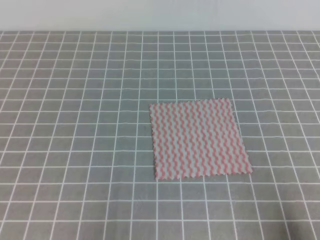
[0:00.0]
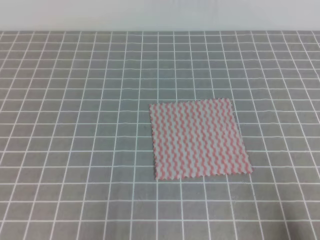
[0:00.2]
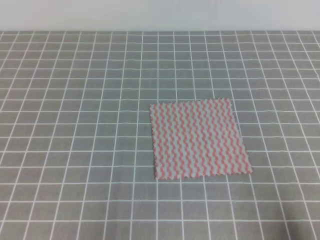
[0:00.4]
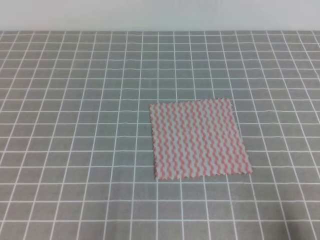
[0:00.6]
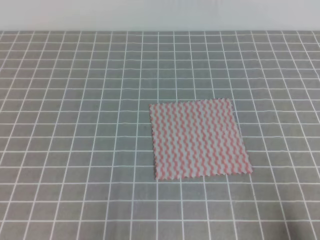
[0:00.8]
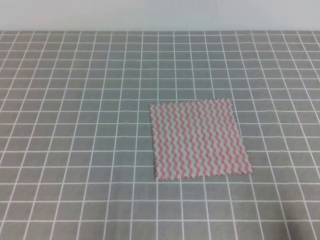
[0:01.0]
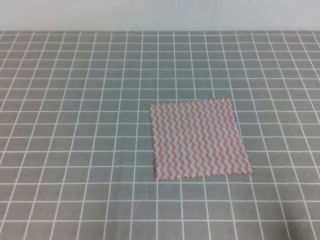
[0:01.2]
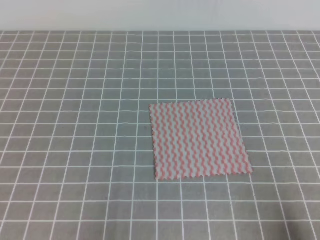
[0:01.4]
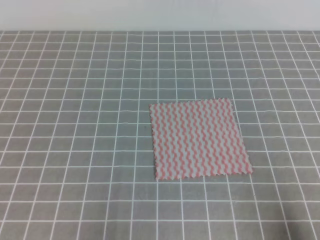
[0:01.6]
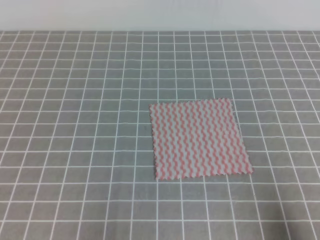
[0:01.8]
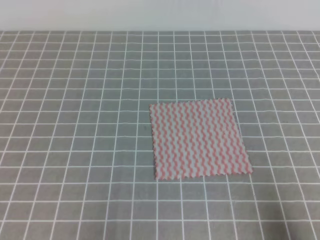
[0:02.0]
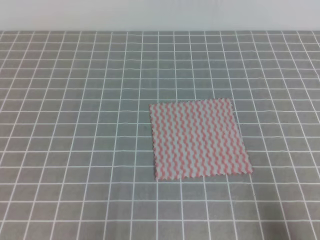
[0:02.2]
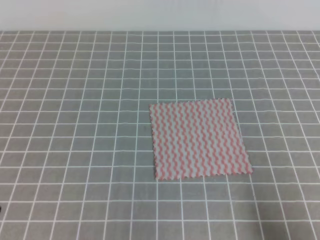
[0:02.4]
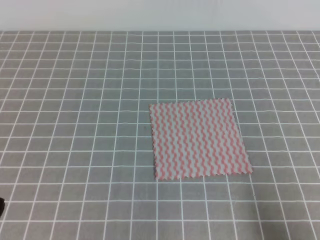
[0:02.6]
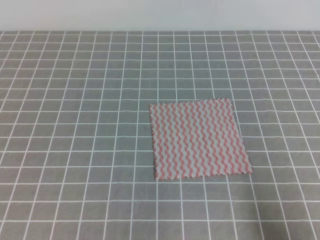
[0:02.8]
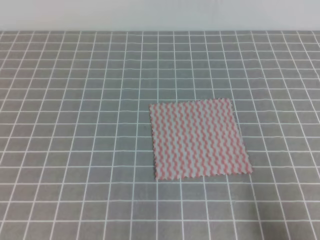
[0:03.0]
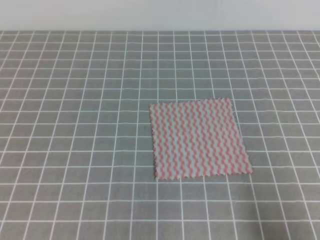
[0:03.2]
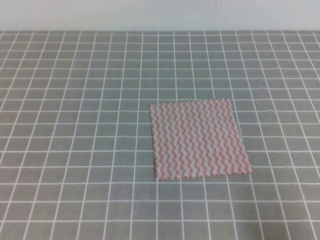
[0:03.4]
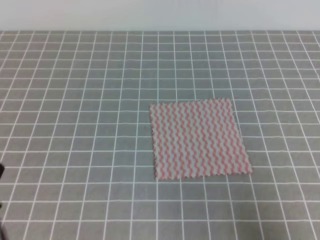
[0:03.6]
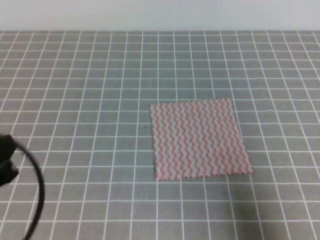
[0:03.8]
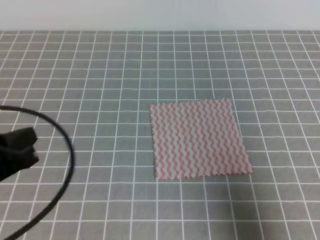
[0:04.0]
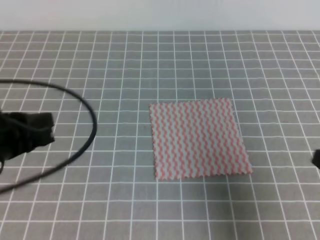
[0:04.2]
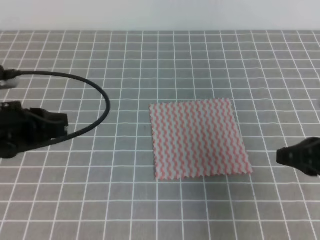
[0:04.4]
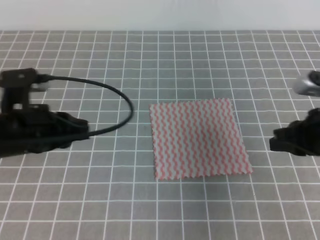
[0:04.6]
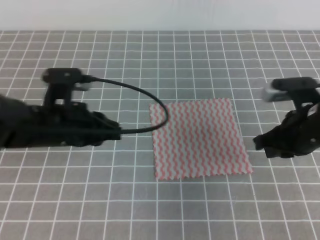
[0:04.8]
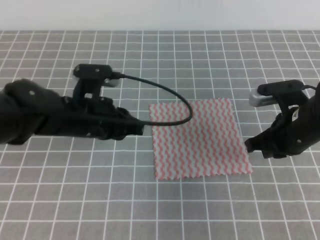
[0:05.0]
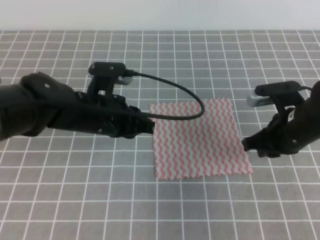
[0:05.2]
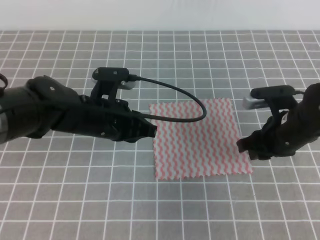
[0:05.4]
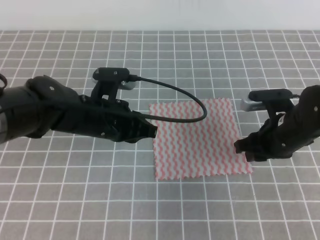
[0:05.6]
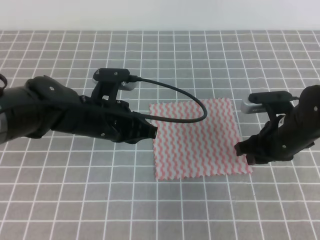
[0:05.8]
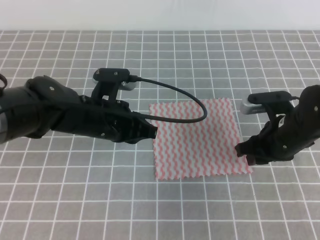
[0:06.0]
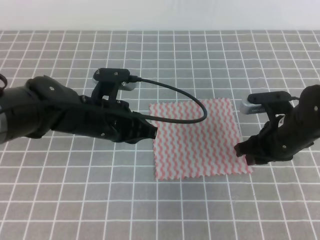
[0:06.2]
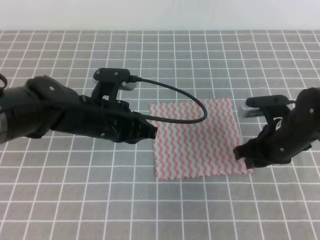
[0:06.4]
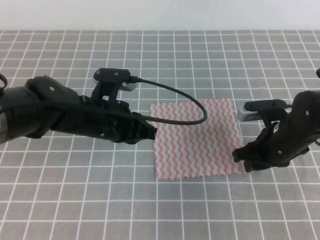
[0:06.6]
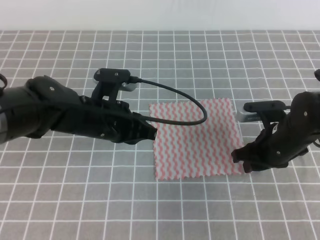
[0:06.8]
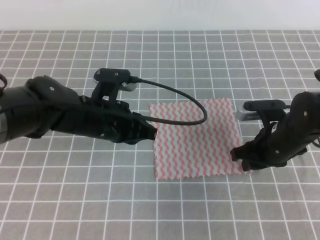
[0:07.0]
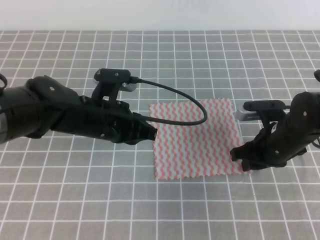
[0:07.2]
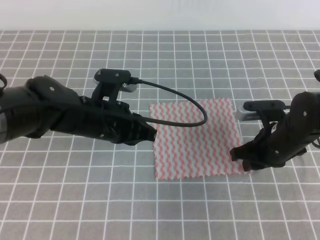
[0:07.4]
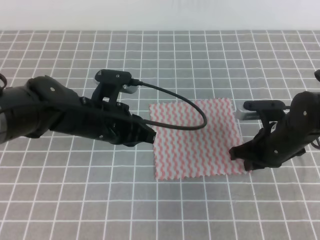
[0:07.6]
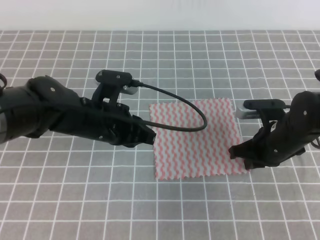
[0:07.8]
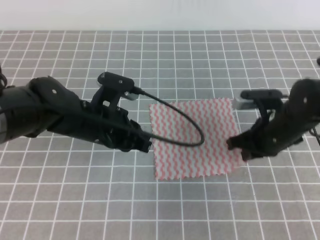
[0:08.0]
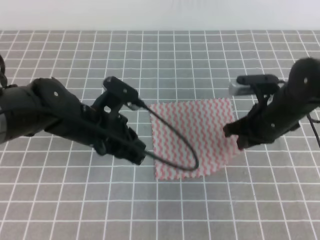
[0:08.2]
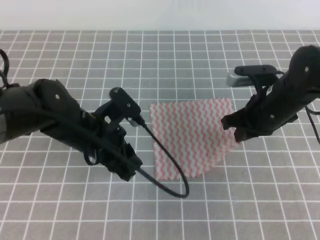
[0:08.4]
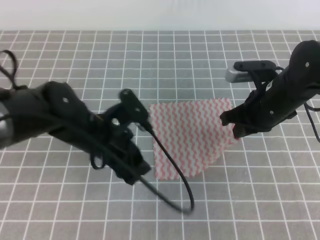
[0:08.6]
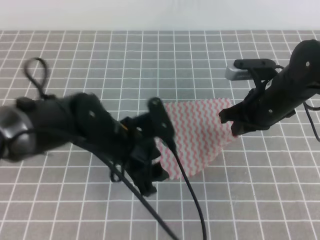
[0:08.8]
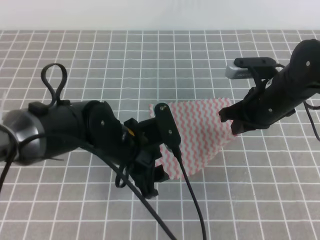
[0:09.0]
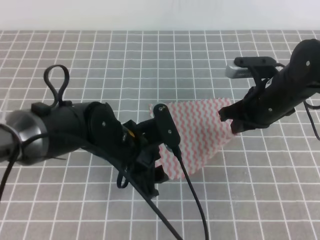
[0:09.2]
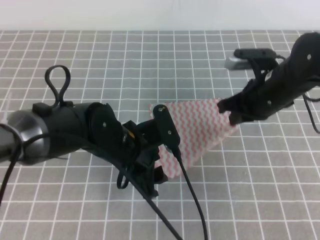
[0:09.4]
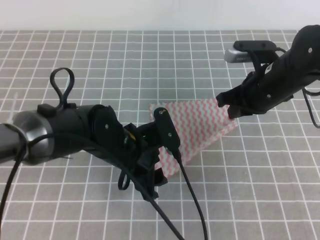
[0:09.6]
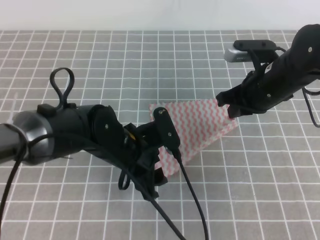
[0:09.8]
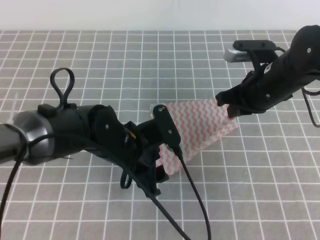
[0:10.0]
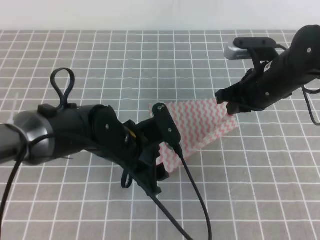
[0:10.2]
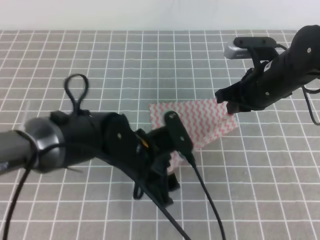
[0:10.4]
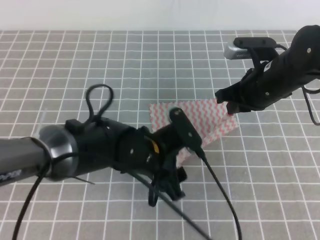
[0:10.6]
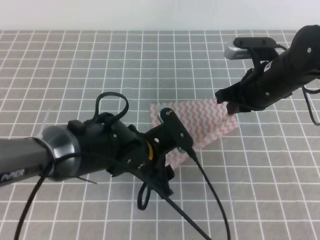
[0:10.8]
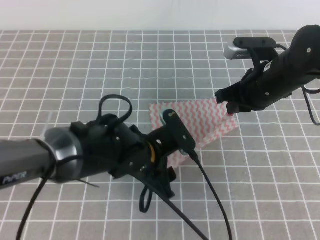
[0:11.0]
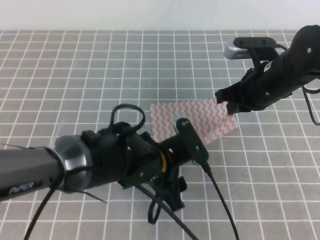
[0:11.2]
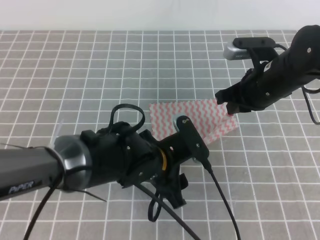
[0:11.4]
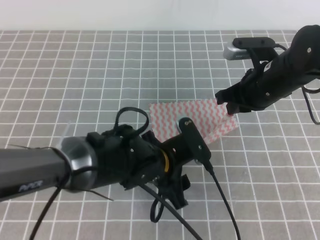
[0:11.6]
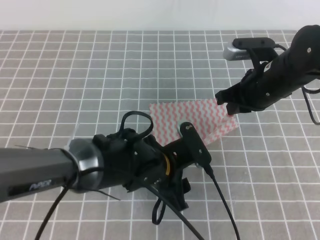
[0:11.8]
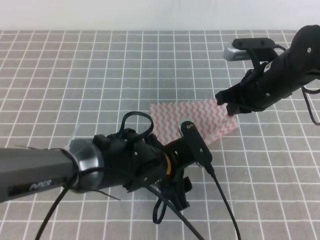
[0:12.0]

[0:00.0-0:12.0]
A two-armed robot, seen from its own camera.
0:00.0 to 0:01.6: Both grippers stay about where they are.
0:03.0 to 0:04.4: The two grippers go about 15 cm forward and upward.
0:04.4 to 0:06.0: The left gripper is displaced to the right and forward by some 15 cm. Meanwhile the right gripper travels forward, downward and to the left by some 15 cm, and opens.
0:06.0 to 0:07.6: The right gripper closes its fingers.
0:07.6 to 0:09.0: The left gripper changes place by about 5 cm, and opens its fingers. The right gripper heads upward, covering approximately 5 cm.
0:10.4 to 0:12.0: The grippers move only a little.

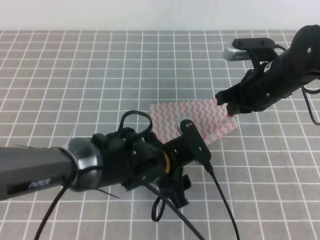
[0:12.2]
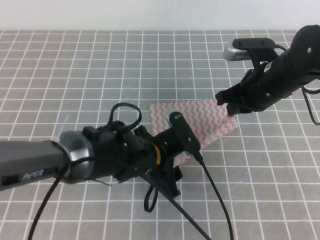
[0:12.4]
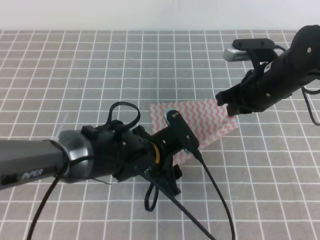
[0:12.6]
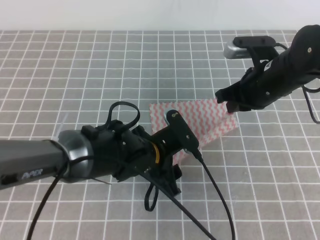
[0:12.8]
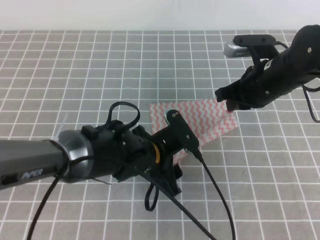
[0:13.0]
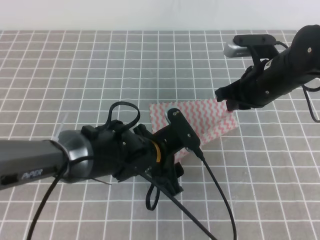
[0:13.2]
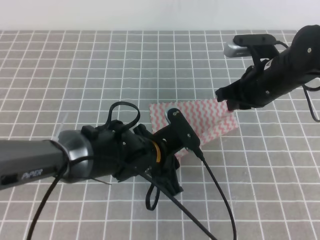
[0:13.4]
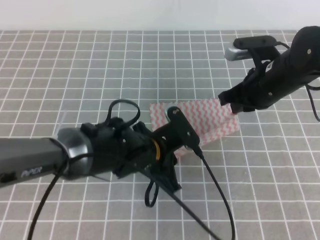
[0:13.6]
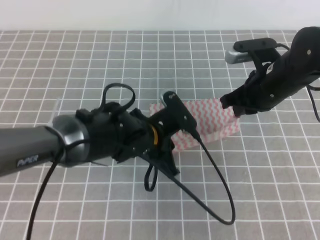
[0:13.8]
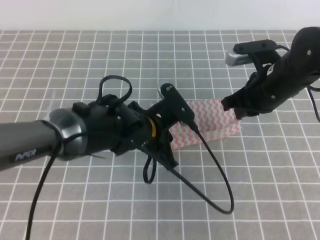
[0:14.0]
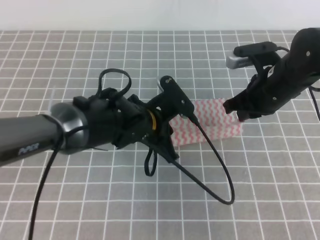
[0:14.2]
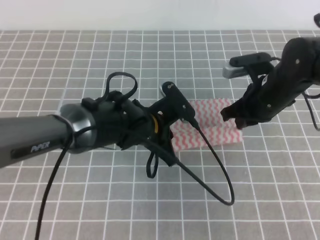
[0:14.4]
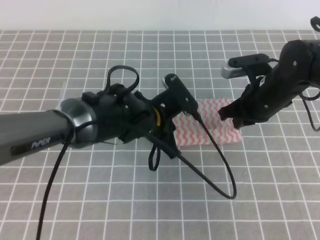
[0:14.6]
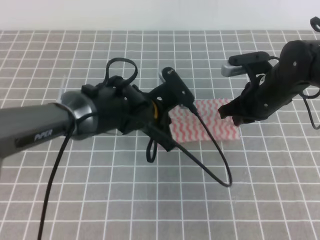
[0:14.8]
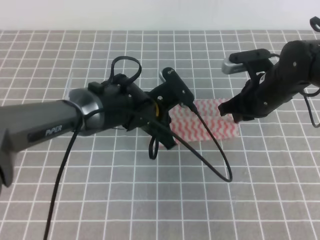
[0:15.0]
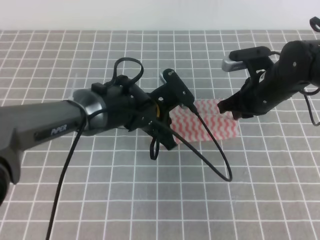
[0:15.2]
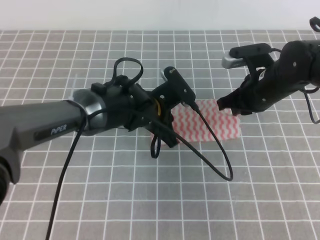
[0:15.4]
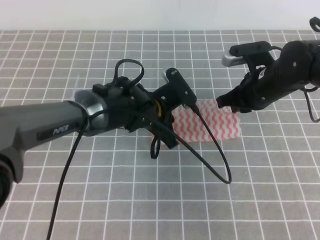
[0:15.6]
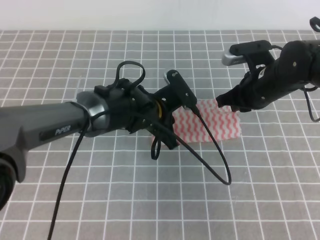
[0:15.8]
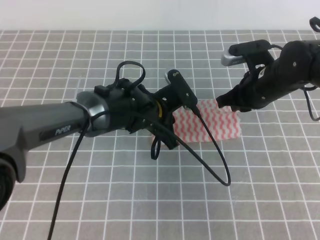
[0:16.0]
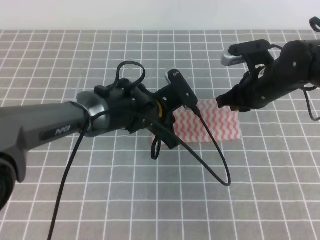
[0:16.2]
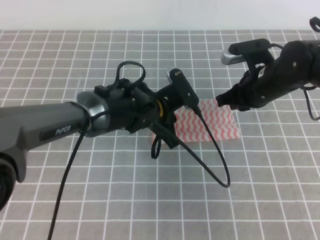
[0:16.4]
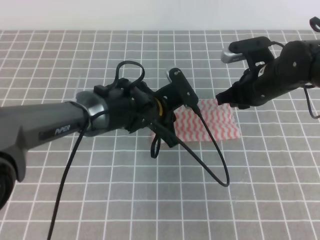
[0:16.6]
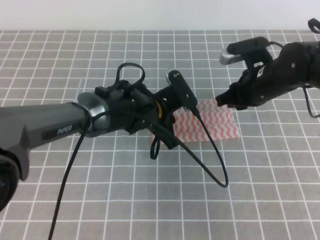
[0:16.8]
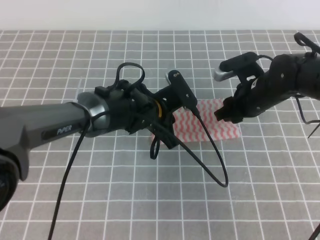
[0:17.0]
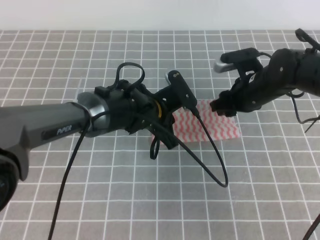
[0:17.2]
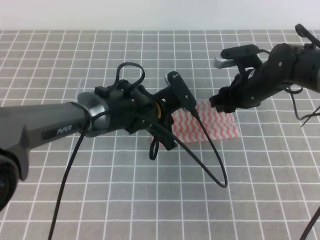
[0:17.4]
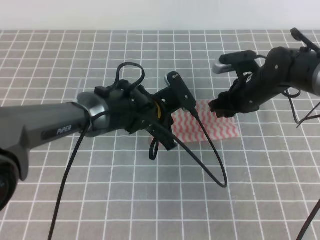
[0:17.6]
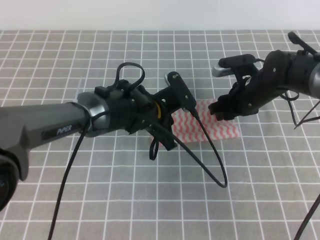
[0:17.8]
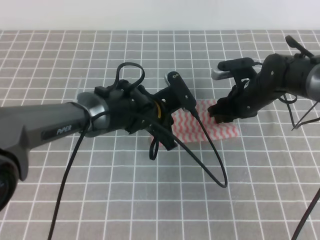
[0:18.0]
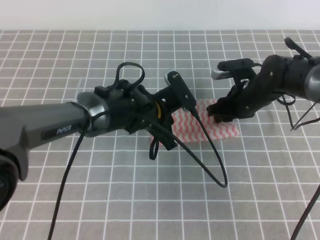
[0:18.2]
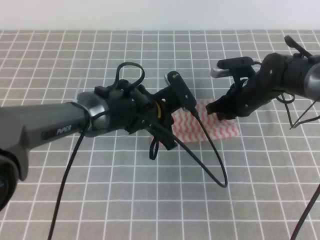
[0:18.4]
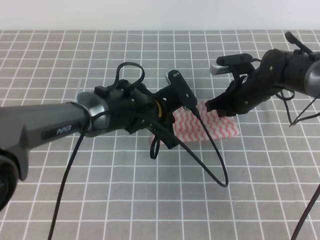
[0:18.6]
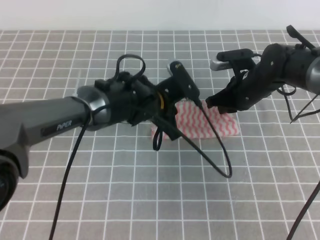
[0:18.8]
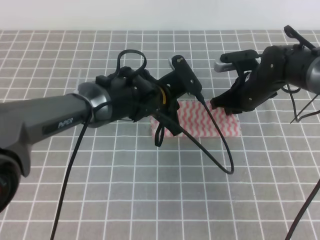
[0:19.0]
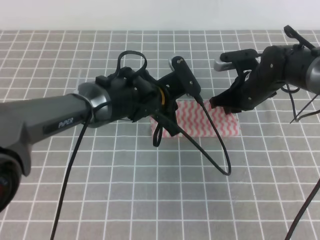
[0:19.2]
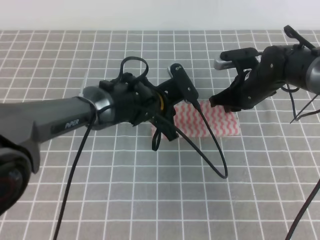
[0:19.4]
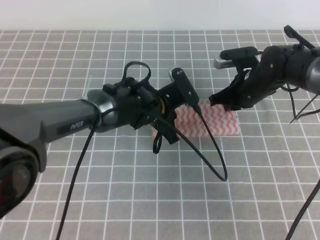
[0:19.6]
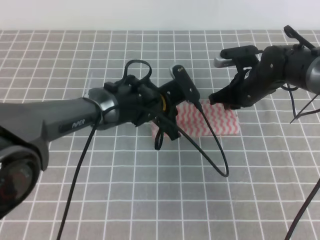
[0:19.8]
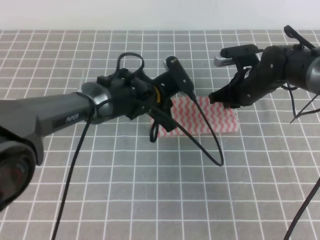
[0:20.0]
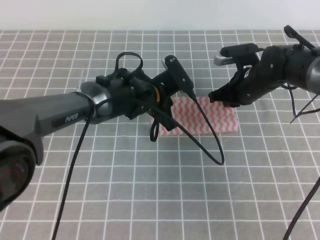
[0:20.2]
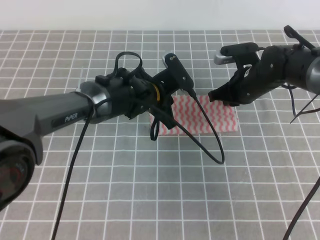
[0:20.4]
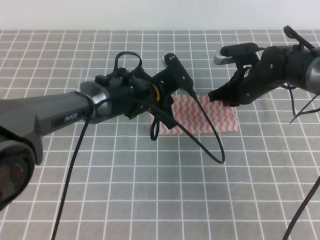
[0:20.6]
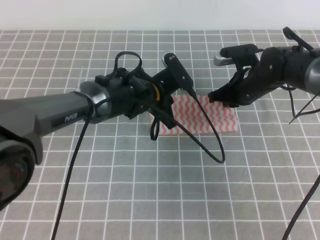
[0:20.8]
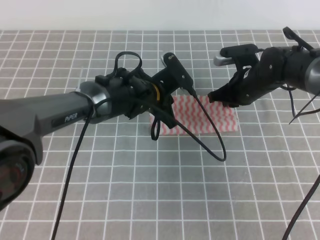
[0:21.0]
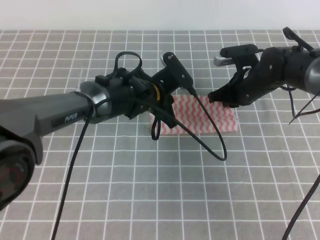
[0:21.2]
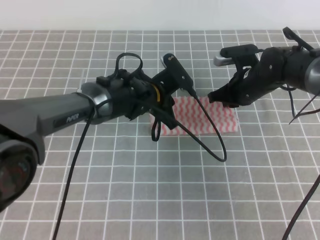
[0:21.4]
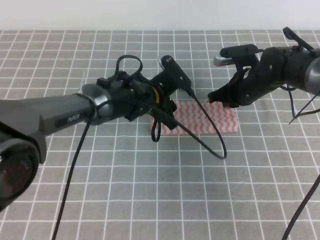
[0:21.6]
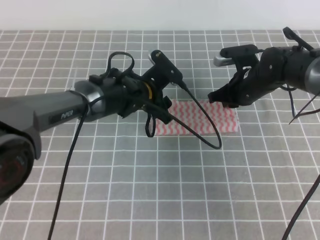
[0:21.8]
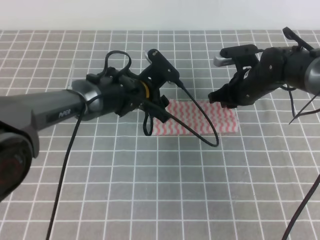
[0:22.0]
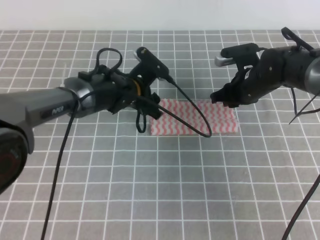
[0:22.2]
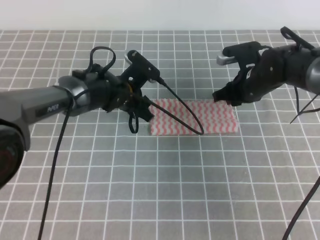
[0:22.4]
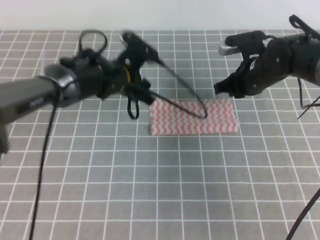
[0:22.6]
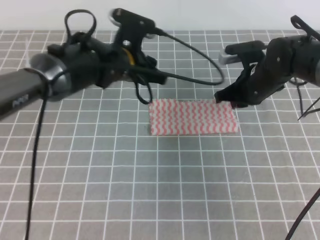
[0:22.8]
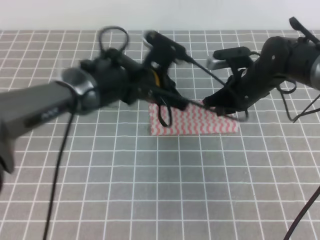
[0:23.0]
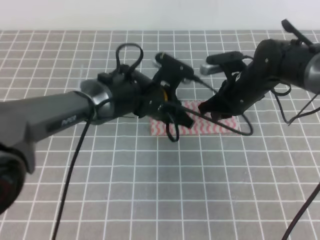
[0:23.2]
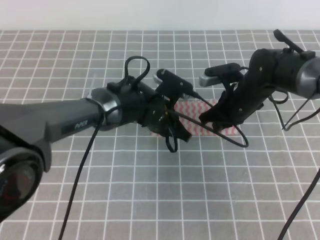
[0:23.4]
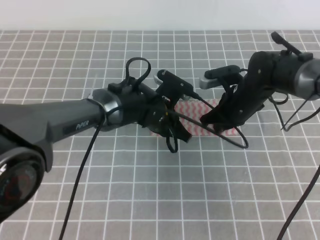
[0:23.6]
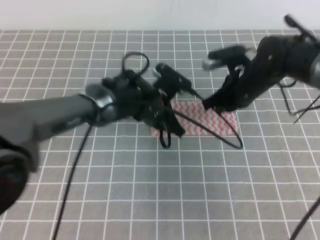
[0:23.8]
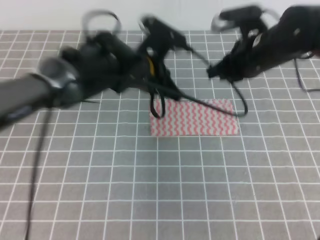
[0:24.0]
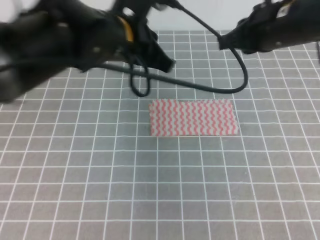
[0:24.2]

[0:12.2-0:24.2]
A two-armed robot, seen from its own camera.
0:12.2 to 0:13.8: The left gripper closes up.
0:13.8 to 0:15.2: The left gripper heads forward, covering about 5 cm.
0:15.2 to 0:16.6: The grippers move only a little.
0:16.6 to 0:18.2: The right gripper heads downward, covering about 5 cm.
0:18.2 to 0:19.8: The right gripper closes.
0:19.8 to 0:21.2: There are only small adjustments of the grippers.
0:21.2 to 0:22.6: The left gripper shifts by approximately 5 cm, and opens up.
0:22.6 to 0:24.2: Both grippers move upward and backward, some 15 cm. The left gripper closes.
